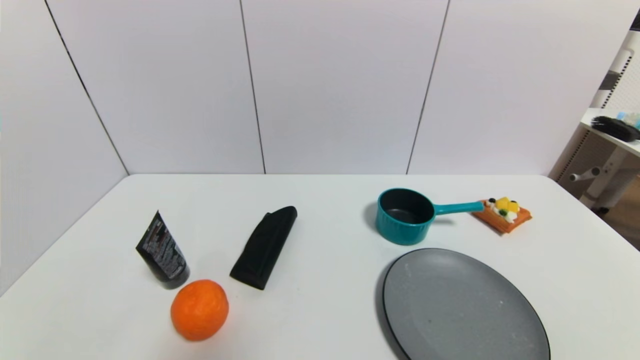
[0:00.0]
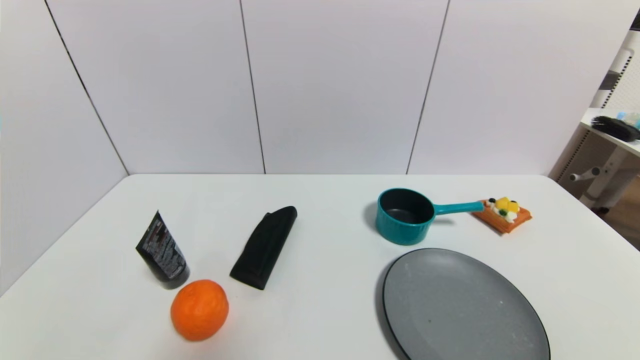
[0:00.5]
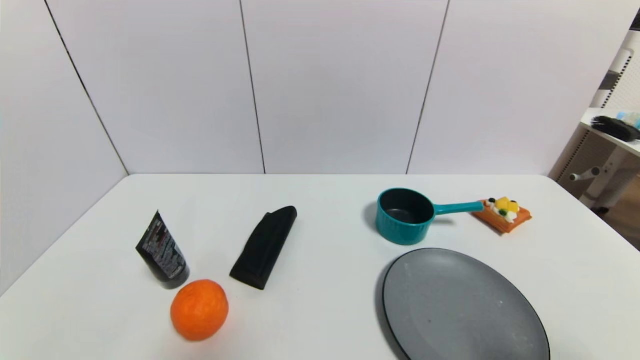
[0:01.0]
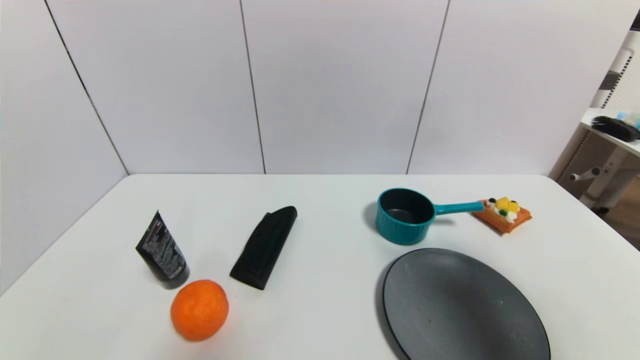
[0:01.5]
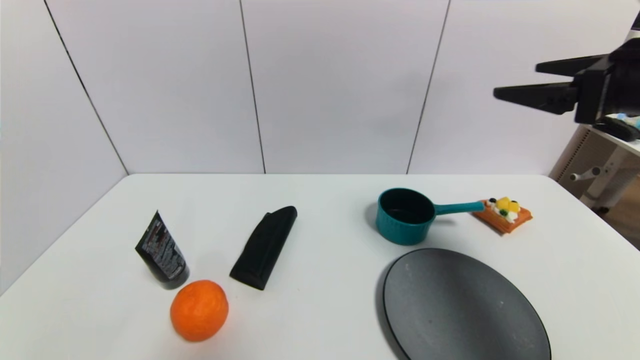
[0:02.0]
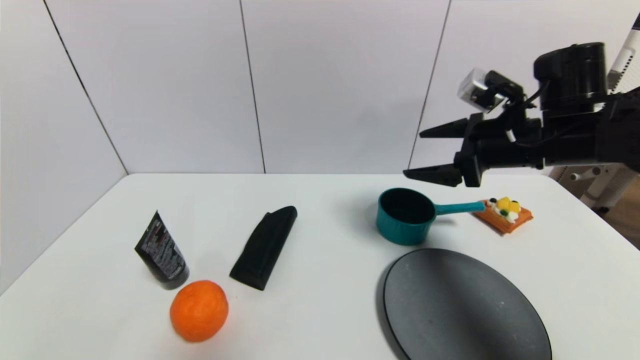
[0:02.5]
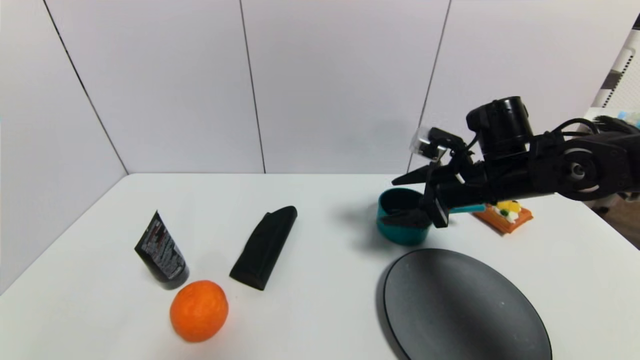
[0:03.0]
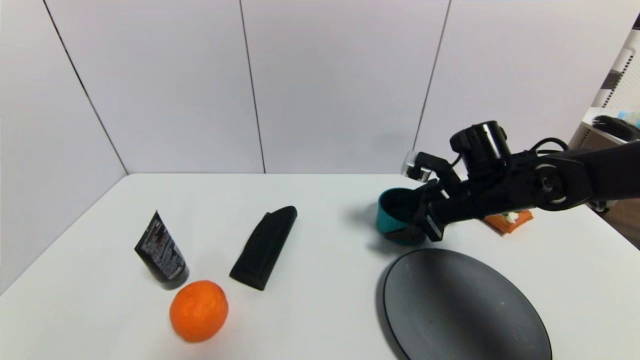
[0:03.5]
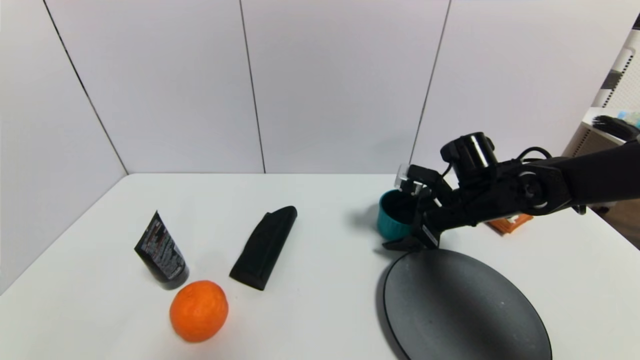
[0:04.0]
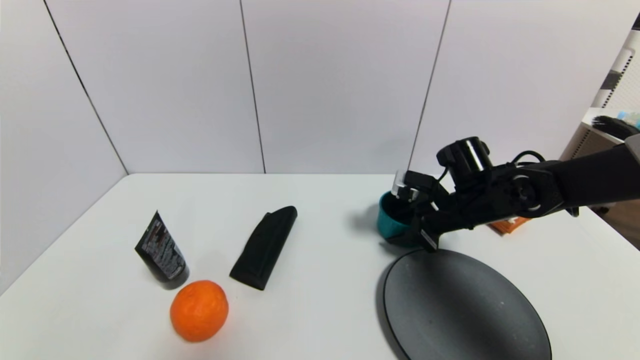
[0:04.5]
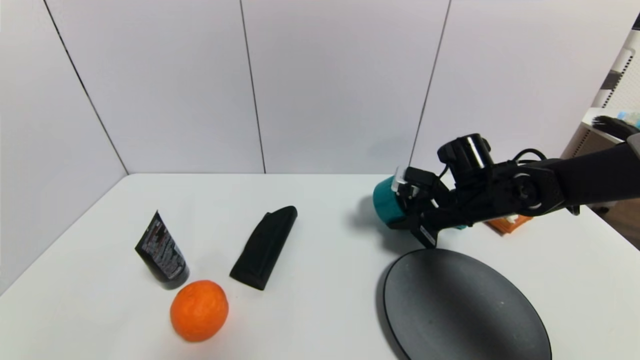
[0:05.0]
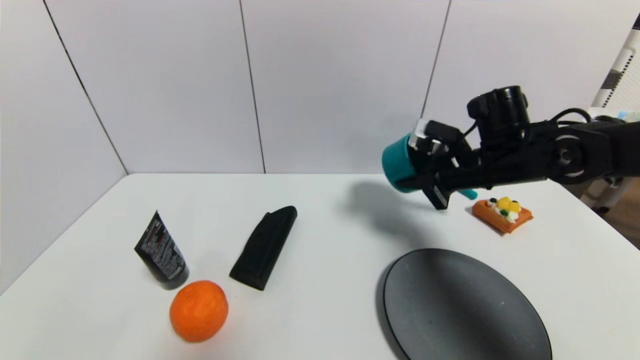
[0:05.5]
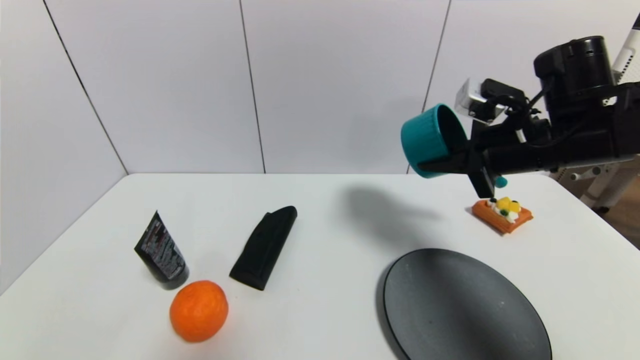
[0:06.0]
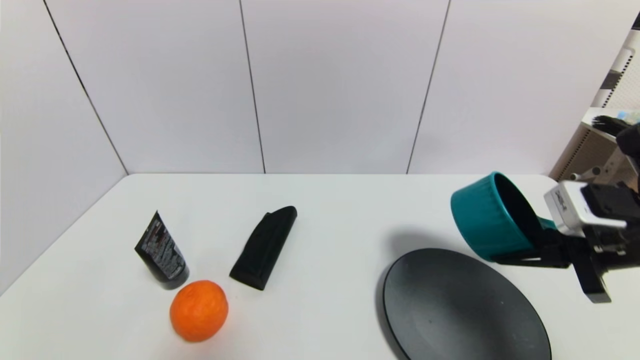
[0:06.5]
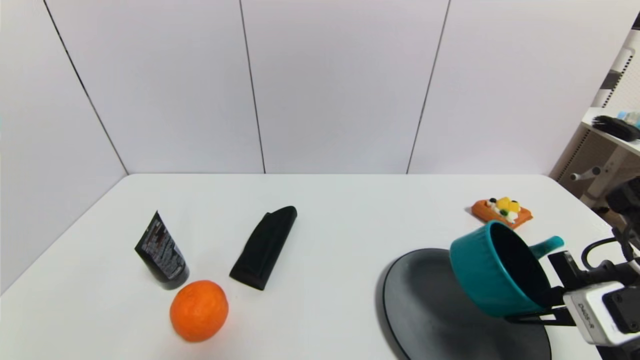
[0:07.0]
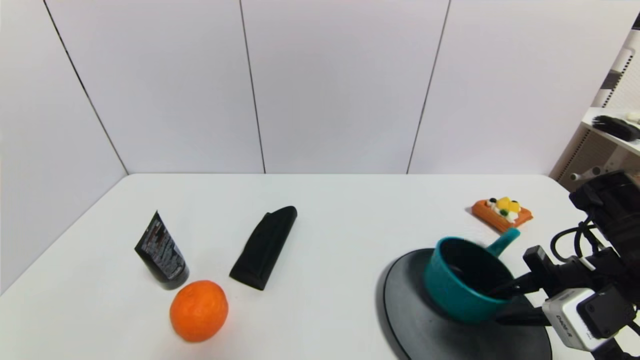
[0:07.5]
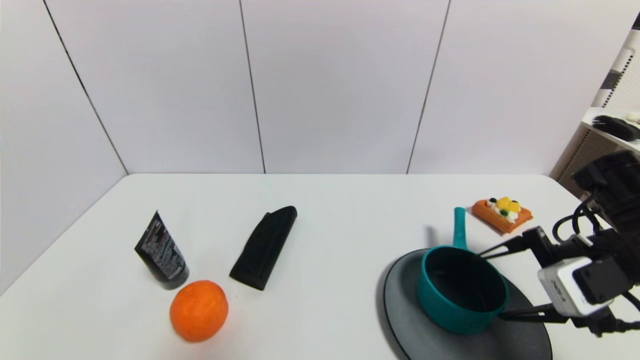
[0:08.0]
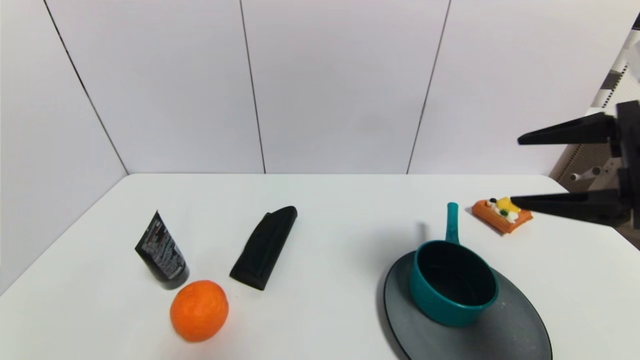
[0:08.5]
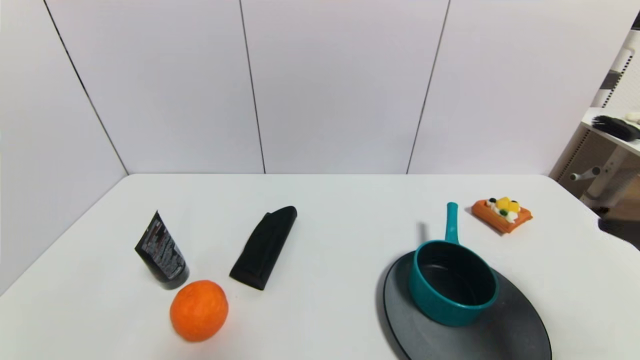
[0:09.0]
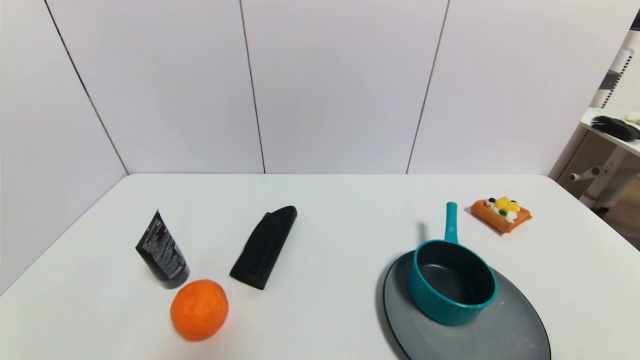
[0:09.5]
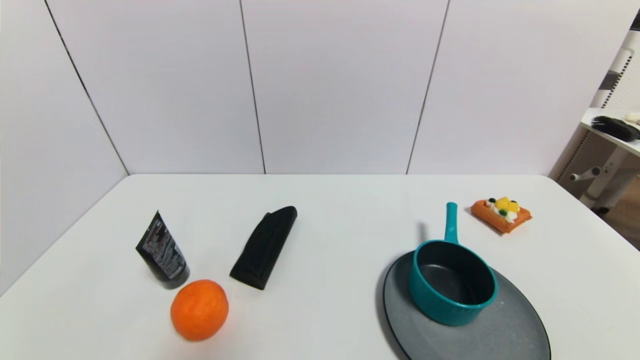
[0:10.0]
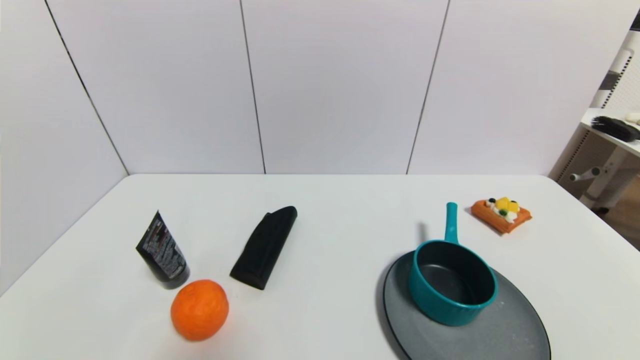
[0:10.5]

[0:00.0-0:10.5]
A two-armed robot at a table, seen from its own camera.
Task of the whole recording: use a gripper to pick the target object and place on the gray plate.
Step, 0:00.0 to 0:04.5: Grasp the blue pot with the right gripper.
Step, 0:05.0 to 0:08.0: Place the blue pot on the gray plate with the right gripper.
0:00.0 to 0:02.0: The right gripper travels forward and upward by approximately 35 cm.
0:02.0 to 0:04.0: The right gripper moves downward, forward and to the left, approximately 25 cm.
0:04.0 to 0:06.5: The right gripper is displaced backward, to the right and upward by some 20 cm, and closes.
0:06.5 to 0:08.5: The right gripper heads upward, covering some 10 cm, and opens up.
0:08.5 to 0:10.5: The right gripper is displaced downward and backward by approximately 30 cm.
